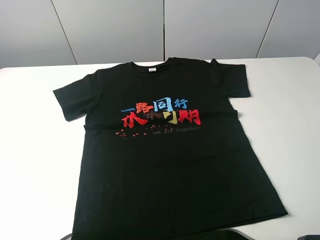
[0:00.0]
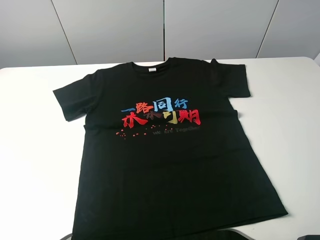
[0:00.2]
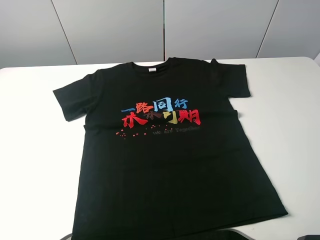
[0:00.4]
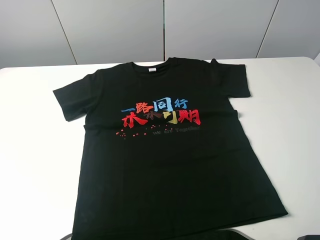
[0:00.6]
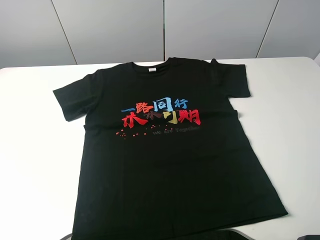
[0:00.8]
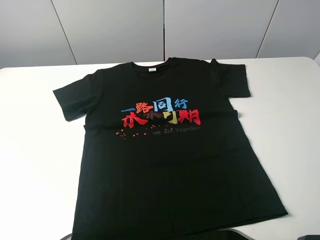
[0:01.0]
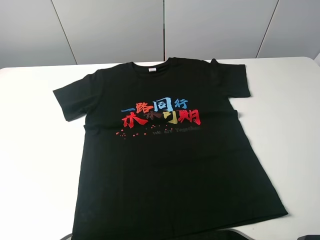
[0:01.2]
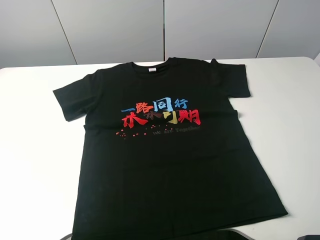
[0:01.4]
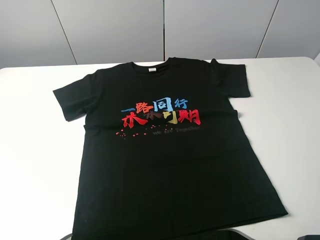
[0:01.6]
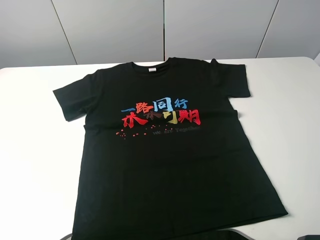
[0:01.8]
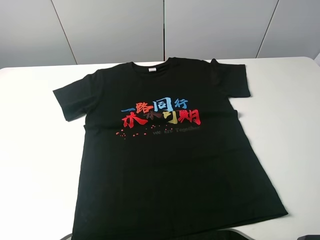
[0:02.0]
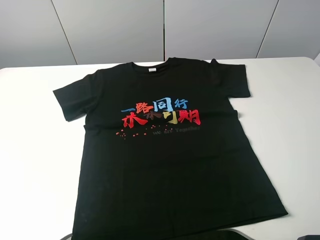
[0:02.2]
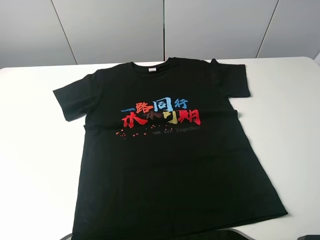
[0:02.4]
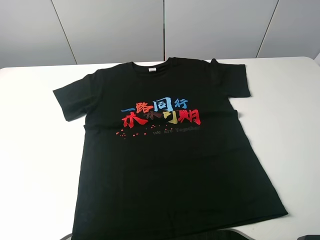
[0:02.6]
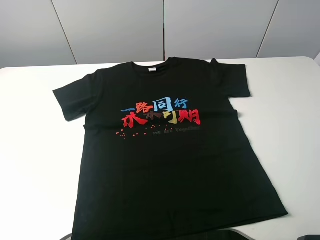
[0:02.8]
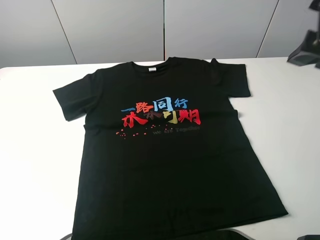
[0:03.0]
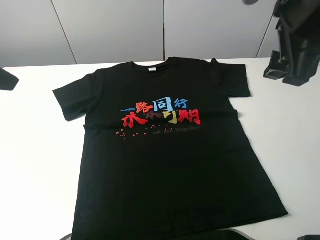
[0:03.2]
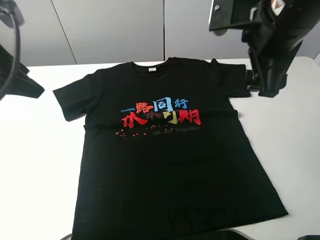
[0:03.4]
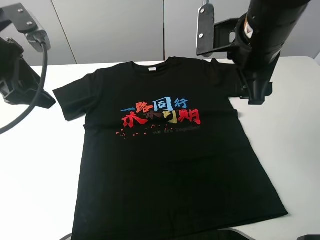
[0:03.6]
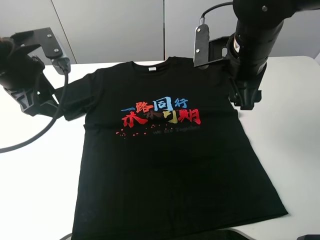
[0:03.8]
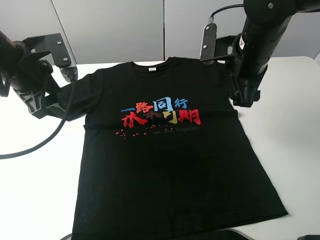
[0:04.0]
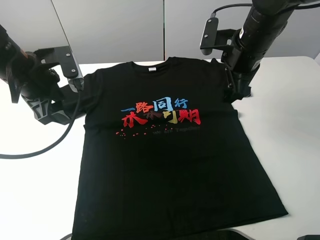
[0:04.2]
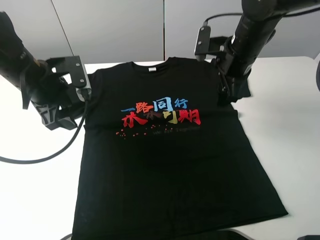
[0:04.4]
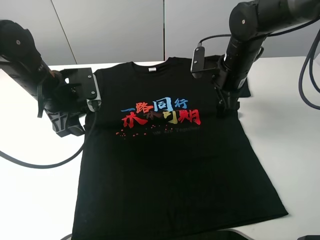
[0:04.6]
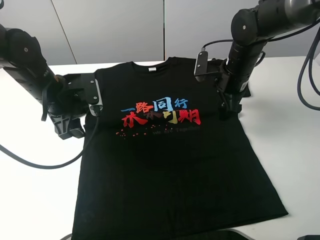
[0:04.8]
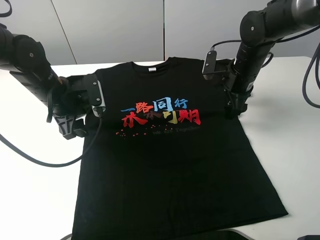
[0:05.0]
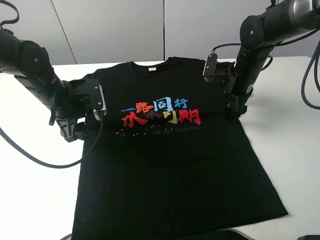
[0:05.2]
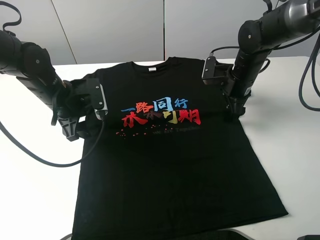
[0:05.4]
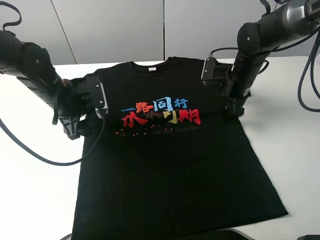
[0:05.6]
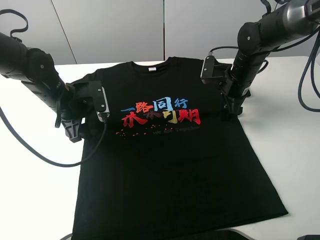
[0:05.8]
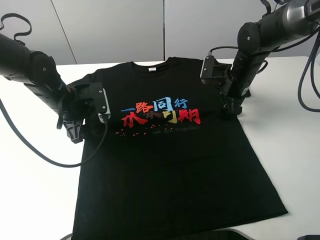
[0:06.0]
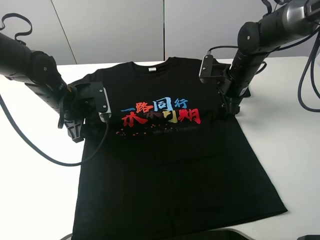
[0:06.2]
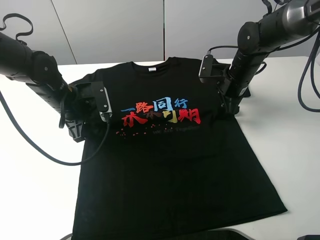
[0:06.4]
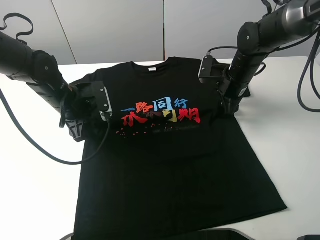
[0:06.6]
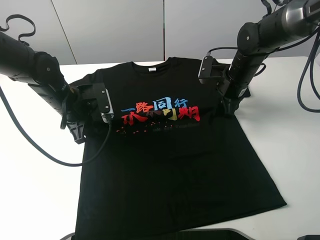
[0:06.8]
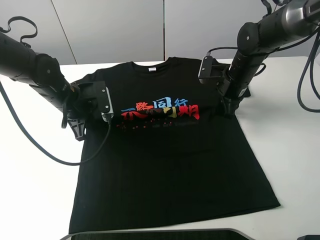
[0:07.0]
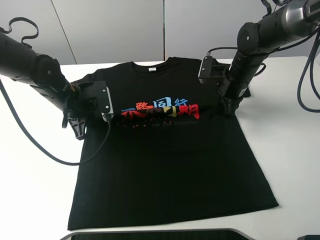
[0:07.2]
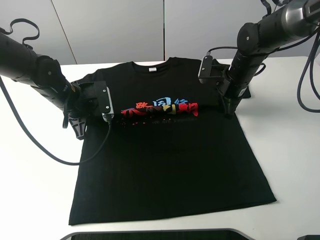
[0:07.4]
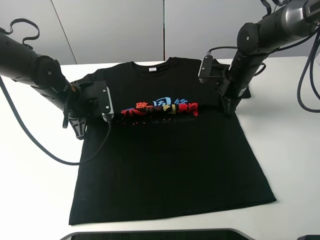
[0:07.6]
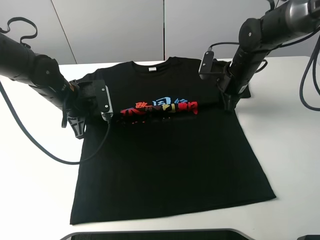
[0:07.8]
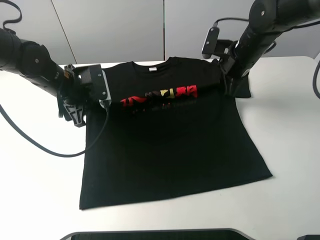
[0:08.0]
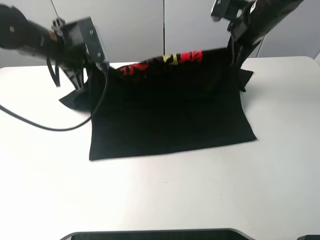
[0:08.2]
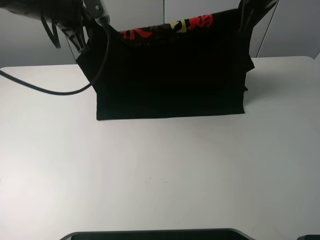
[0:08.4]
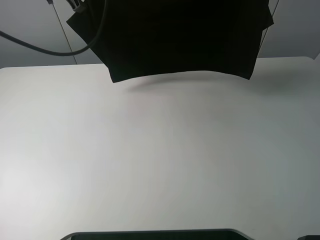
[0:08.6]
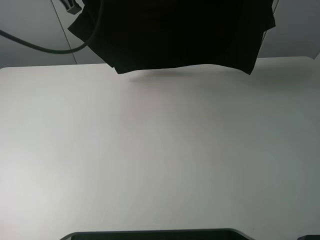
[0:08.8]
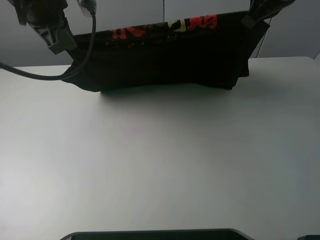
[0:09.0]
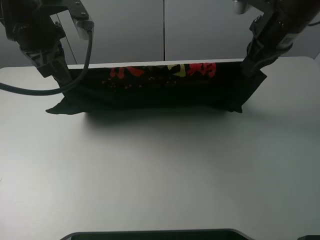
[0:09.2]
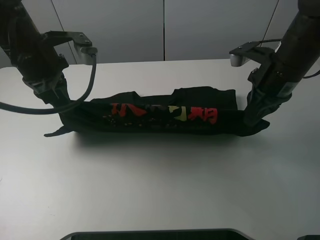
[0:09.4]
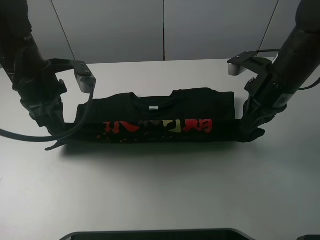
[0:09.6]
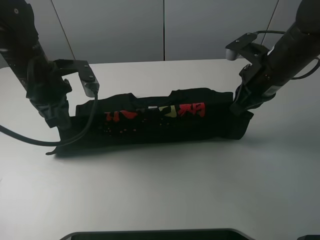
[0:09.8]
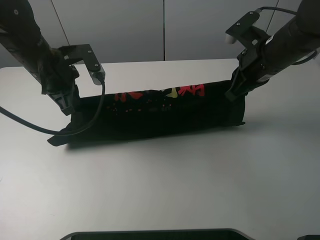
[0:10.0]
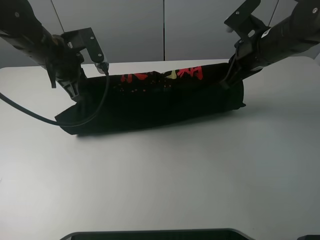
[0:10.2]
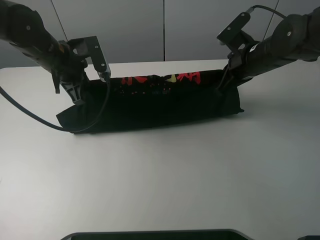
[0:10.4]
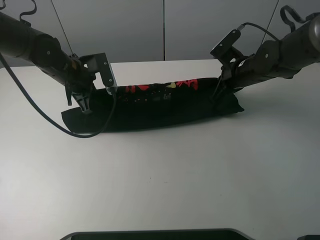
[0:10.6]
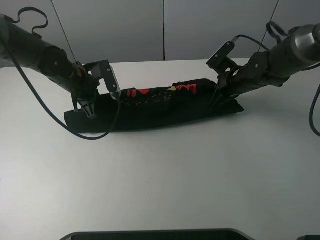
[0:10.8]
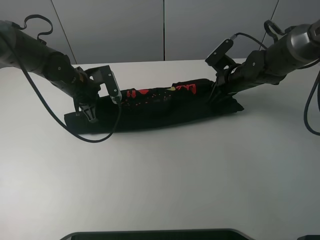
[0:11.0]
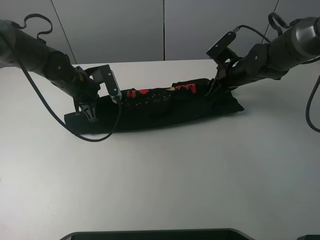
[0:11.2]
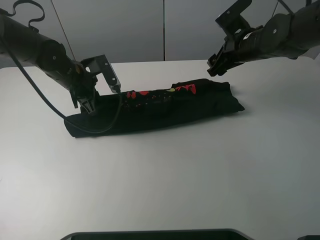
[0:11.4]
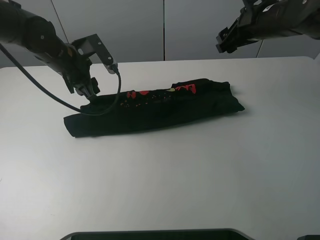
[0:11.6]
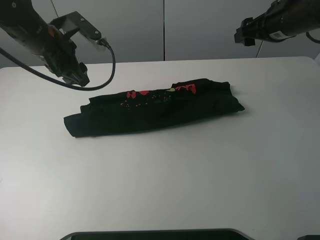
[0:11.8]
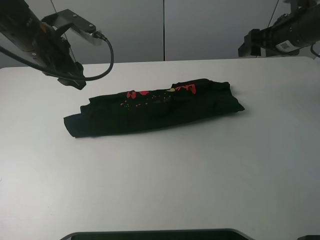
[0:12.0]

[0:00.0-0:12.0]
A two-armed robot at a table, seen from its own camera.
Task of the whole recording: fold the clothes on the table.
Step, 0:00.0 to 0:07.2: Lift the black T-shirt with the left gripper.
Step, 0:07.4 to 0:11.2: Fold the black T-shirt downward with the left gripper.
0:00.0 to 0:01.6: The two grippers keep their place.
0:01.6 to 0:03.0: The right gripper shifts some 20 cm forward and to the left.
0:03.0 to 0:04.4: The left gripper moves downward, forward and to the right, some 20 cm; the right gripper travels downward and forward by about 25 cm.
0:04.4 to 0:06.0: The grippers both shift downward by some 5 cm.
0:06.0 to 0:07.6: The right gripper closes. Meanwhile the left gripper closes up.
0:07.6 to 0:09.0: Both grippers travel together upward, about 20 cm.
0:09.0 to 0:10.4: The two grippers go about 15 cm downward.
0:10.4 to 0:12.0: The left gripper moves upward, about 5 cm, and opens up. The right gripper travels to the right and upward by about 10 cm, and opens its fingers.

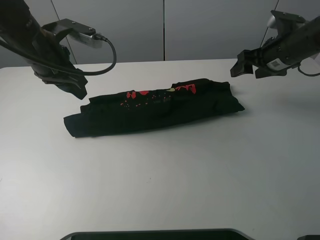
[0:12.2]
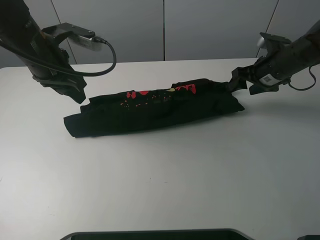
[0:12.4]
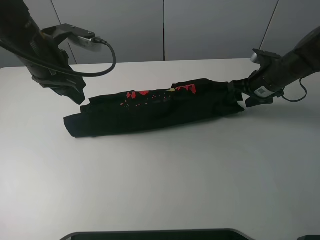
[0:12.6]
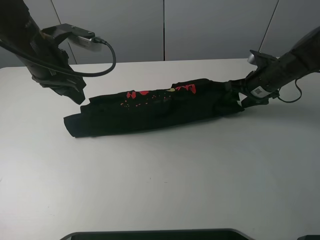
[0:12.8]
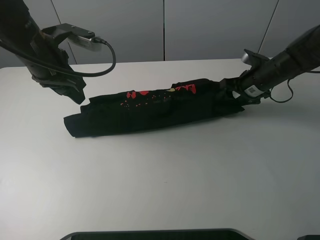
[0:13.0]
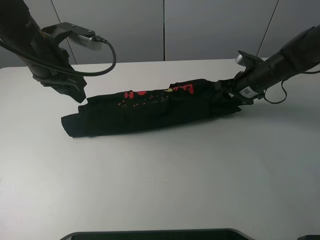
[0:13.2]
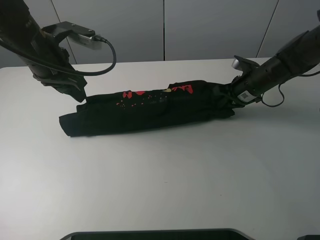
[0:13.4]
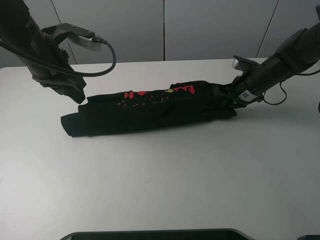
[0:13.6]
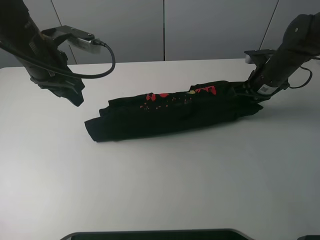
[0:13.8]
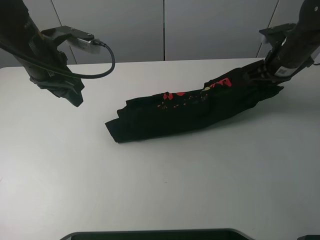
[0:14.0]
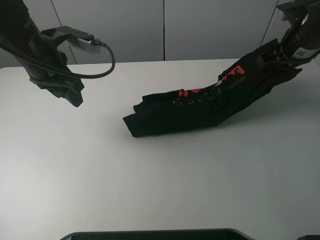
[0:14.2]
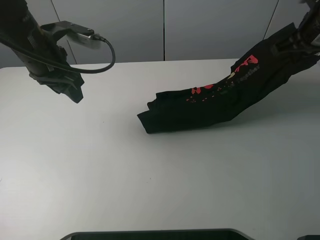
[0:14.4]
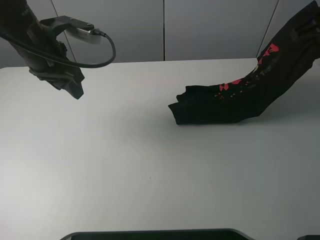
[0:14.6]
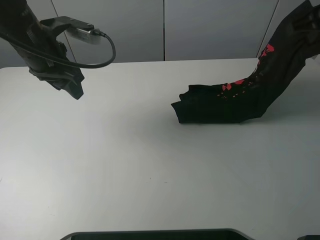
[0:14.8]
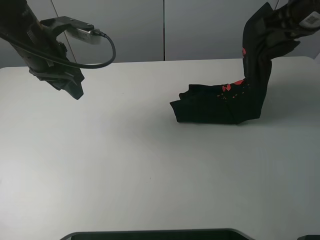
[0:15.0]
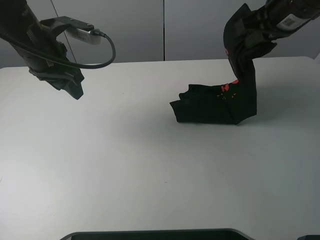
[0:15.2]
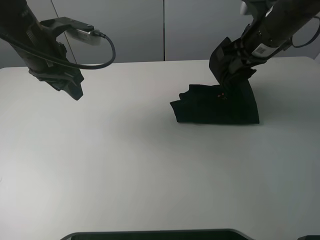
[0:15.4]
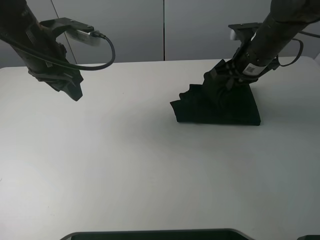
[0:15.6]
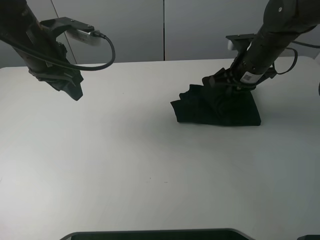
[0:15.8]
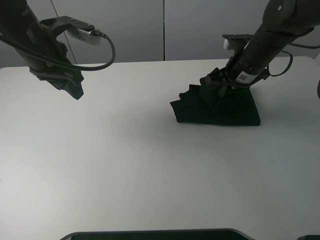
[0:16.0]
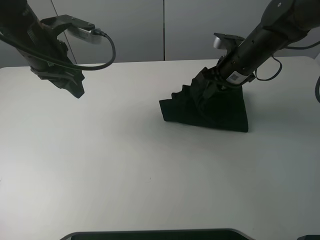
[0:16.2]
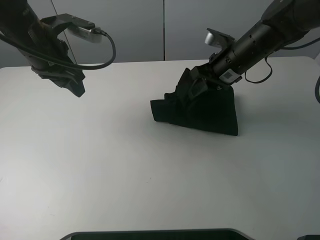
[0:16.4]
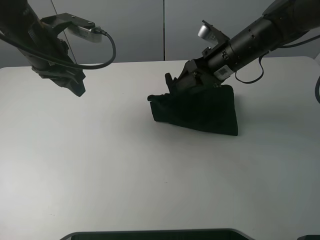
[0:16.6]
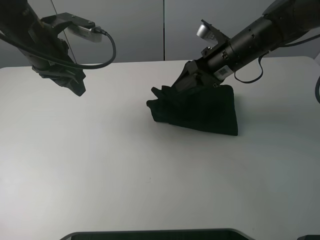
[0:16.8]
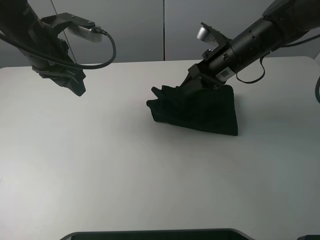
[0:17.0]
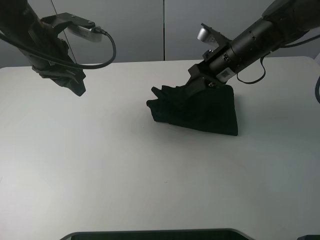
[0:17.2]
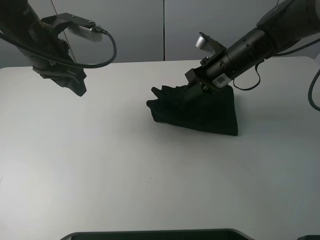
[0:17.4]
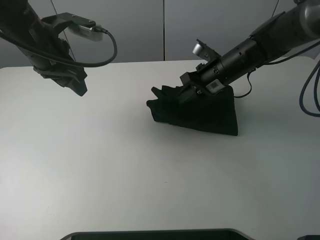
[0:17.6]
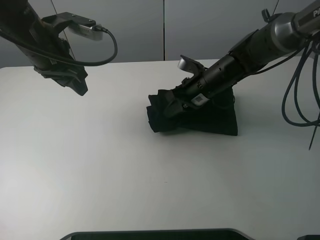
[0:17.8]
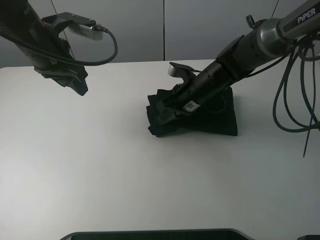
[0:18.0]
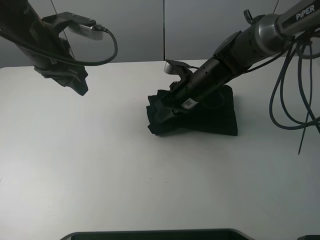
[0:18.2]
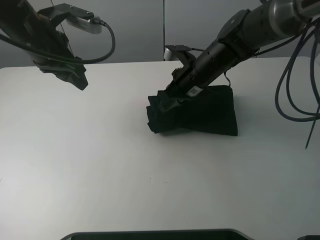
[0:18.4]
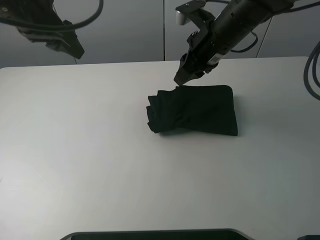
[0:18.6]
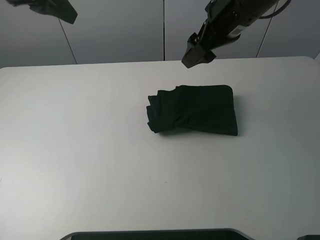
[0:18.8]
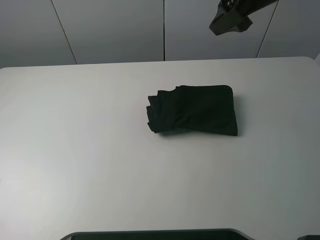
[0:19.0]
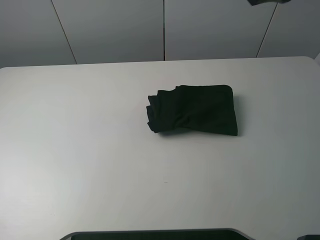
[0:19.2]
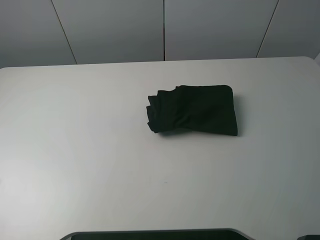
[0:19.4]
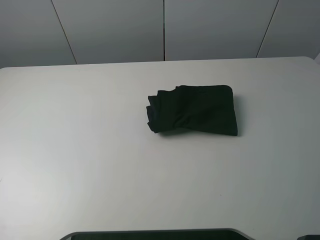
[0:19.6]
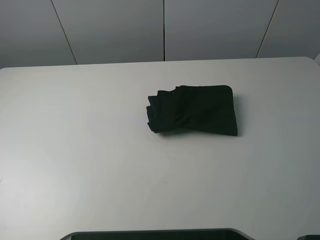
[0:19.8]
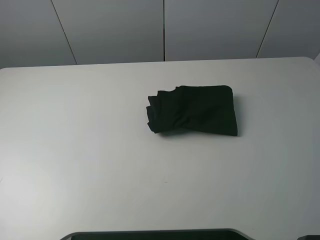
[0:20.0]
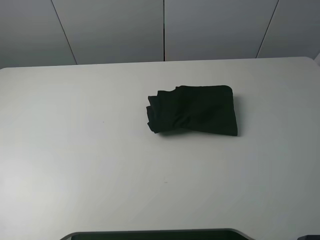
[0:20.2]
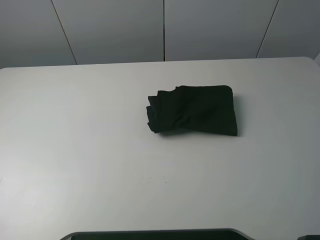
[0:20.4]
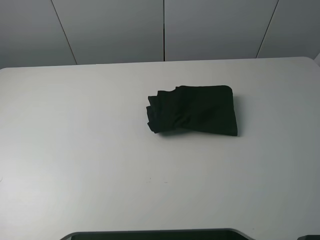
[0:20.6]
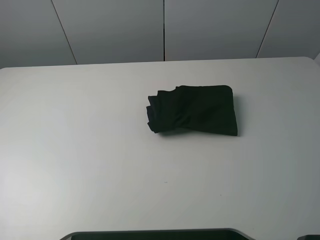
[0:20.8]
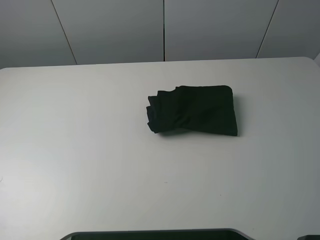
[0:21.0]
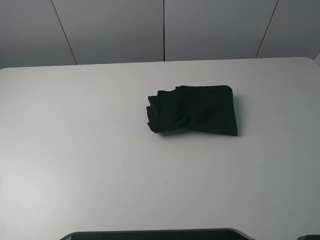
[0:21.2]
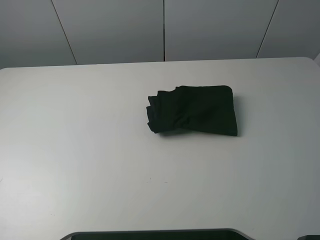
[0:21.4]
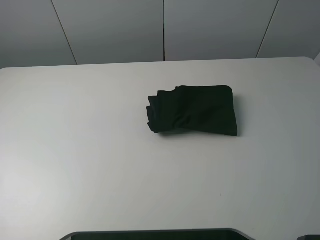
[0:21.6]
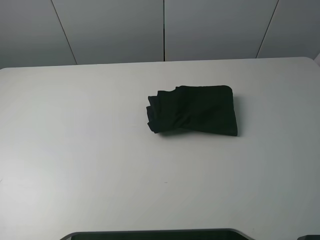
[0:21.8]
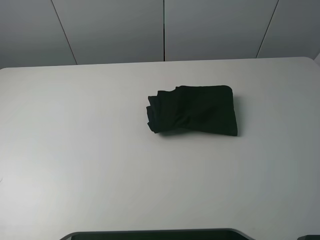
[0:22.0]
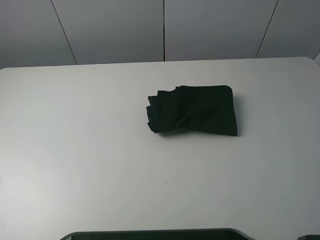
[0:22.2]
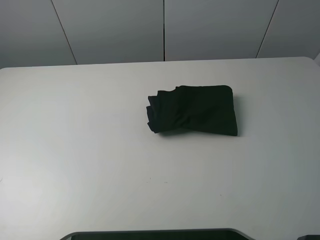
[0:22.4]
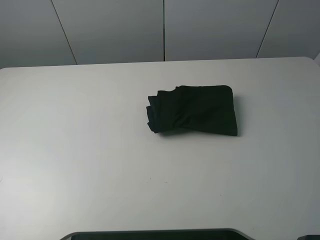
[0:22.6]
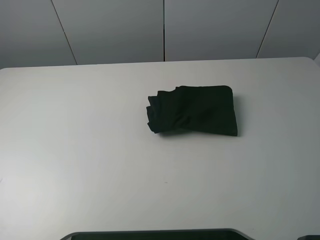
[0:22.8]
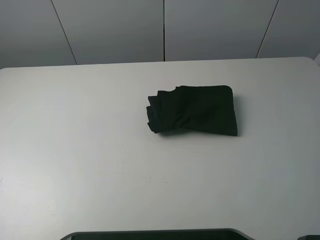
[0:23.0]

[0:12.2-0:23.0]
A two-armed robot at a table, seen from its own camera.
Task of the whole recording: fold the clothes on the table.
Step, 0:12.2 to 0:13.6: Grasp the black T-shirt with the right gripper.
Step, 0:13.8 to 0:18.4: Fold the black T-shirt from right to left with right gripper.
0:12.2 to 0:13.8: The right gripper closes up.
0:13.8 to 0:15.2: The right gripper goes about 15 cm upward.
0:15.2 to 0:16.8: The right gripper heads downward and to the left, covering roughly 10 cm, and opens its fingers.
0:16.8 to 0:18.4: The right gripper is displaced to the left by approximately 5 cm, goes downward and returns, roughly 10 cm each way, and closes its fingers.
0:18.4 to 0:20.0: The right gripper is displaced backward, upward and to the right by roughly 50 cm, and opens up; the left gripper heads upward, backward and to the left, covering approximately 40 cm.
